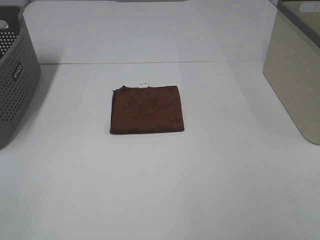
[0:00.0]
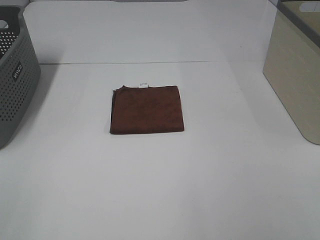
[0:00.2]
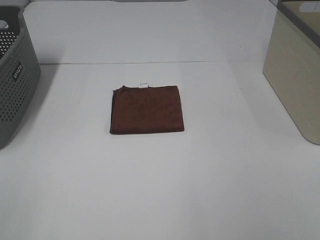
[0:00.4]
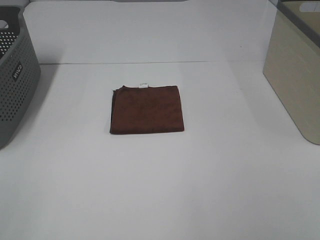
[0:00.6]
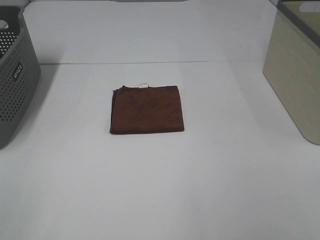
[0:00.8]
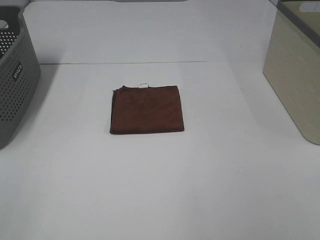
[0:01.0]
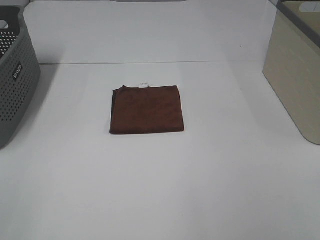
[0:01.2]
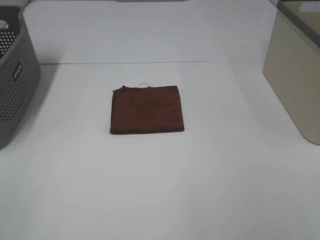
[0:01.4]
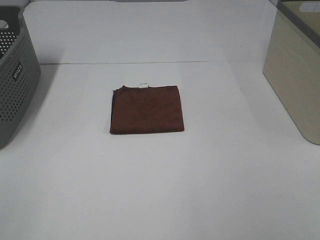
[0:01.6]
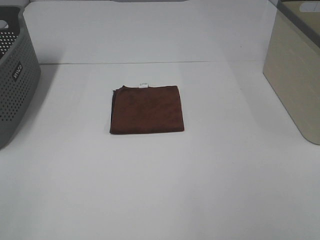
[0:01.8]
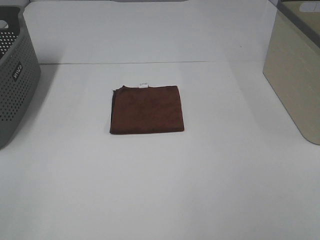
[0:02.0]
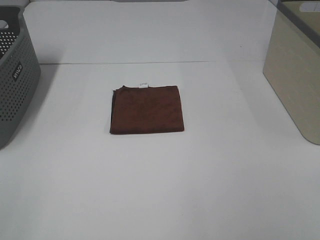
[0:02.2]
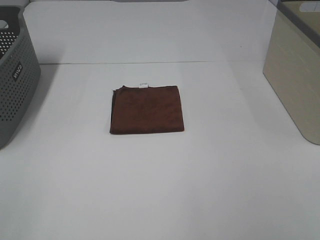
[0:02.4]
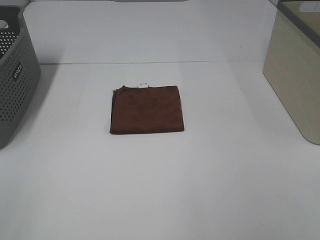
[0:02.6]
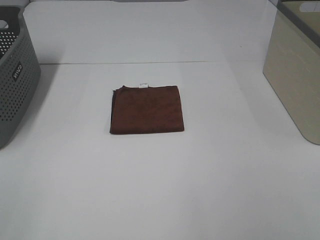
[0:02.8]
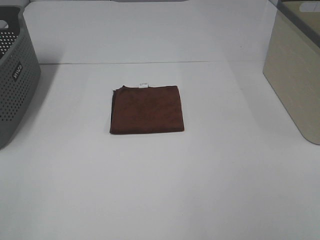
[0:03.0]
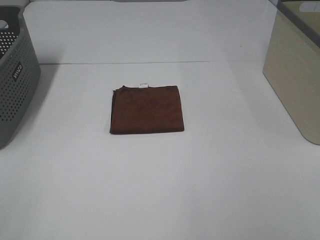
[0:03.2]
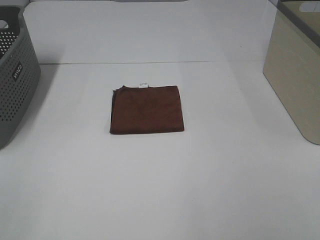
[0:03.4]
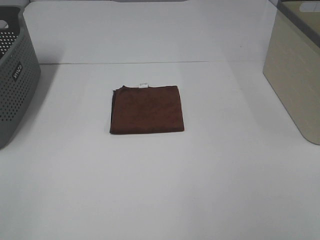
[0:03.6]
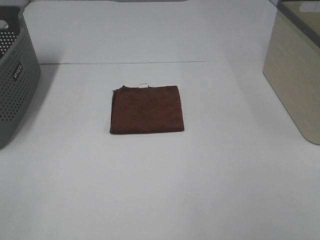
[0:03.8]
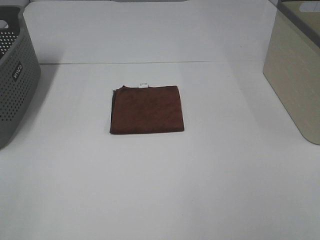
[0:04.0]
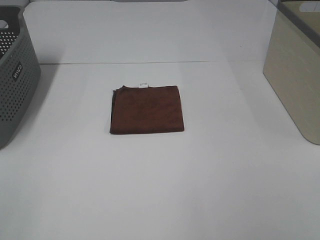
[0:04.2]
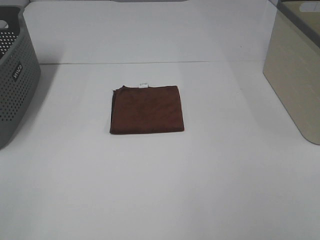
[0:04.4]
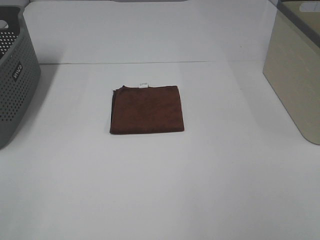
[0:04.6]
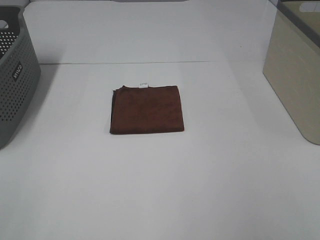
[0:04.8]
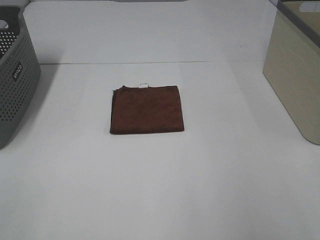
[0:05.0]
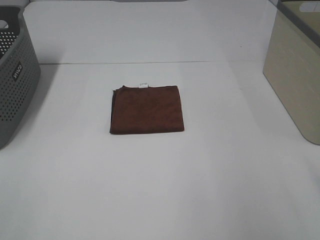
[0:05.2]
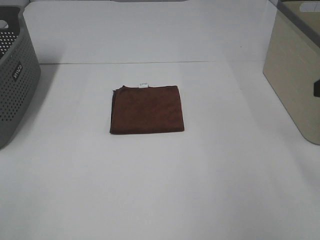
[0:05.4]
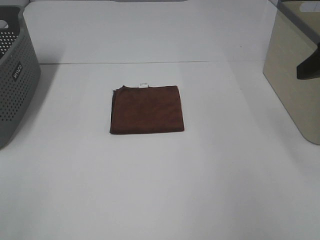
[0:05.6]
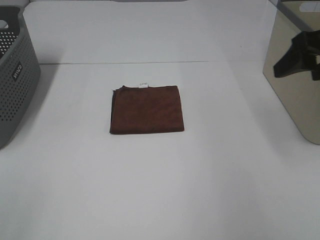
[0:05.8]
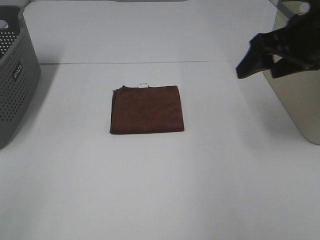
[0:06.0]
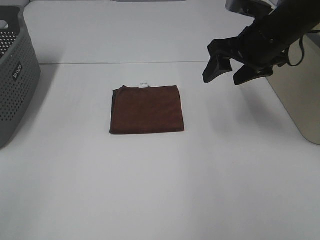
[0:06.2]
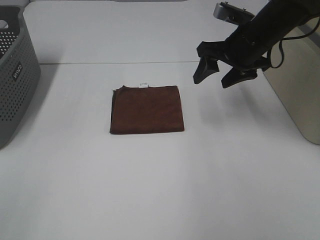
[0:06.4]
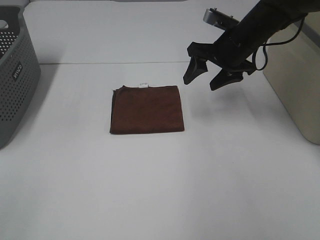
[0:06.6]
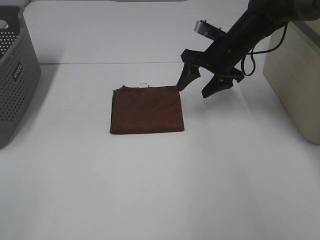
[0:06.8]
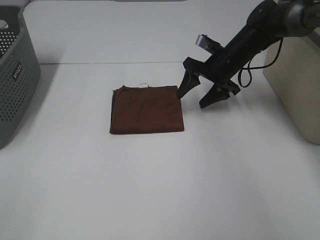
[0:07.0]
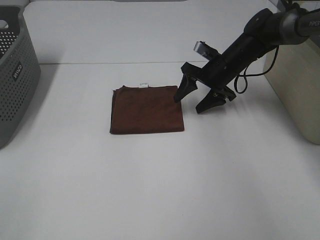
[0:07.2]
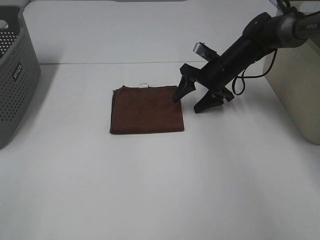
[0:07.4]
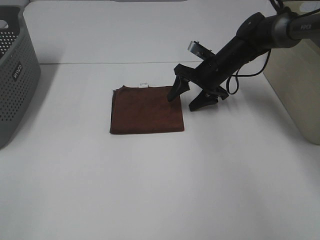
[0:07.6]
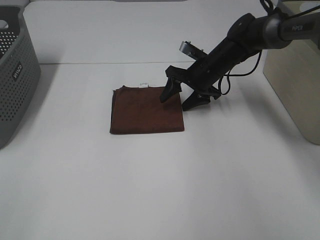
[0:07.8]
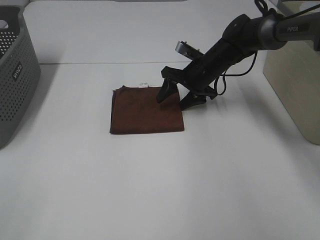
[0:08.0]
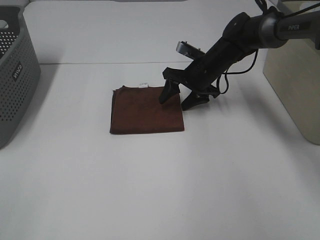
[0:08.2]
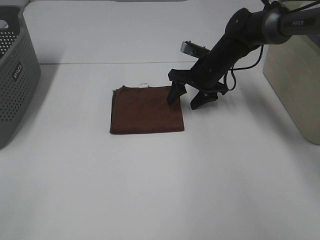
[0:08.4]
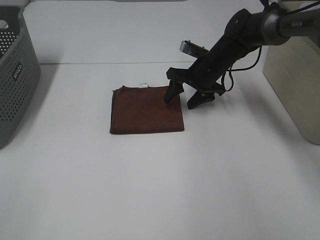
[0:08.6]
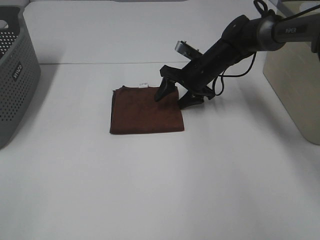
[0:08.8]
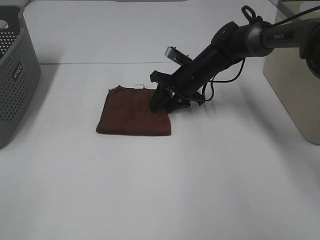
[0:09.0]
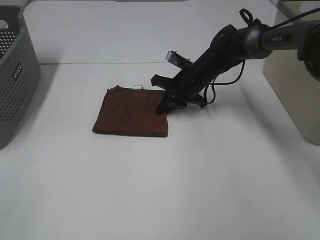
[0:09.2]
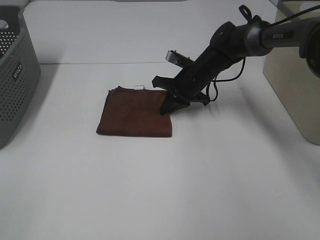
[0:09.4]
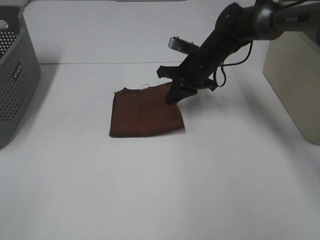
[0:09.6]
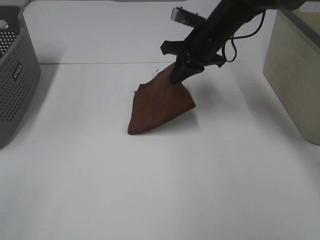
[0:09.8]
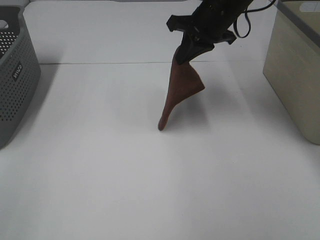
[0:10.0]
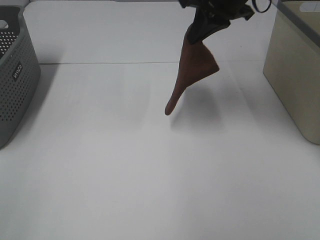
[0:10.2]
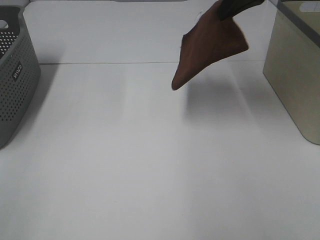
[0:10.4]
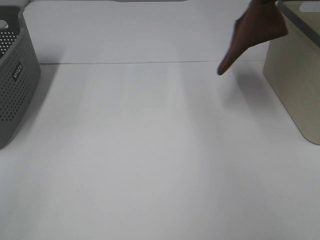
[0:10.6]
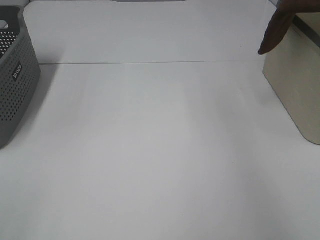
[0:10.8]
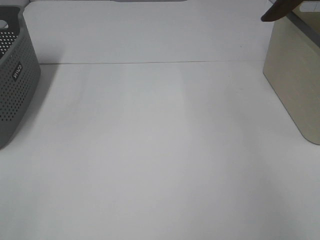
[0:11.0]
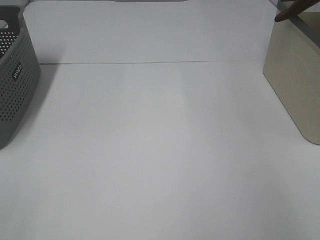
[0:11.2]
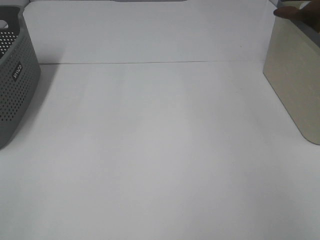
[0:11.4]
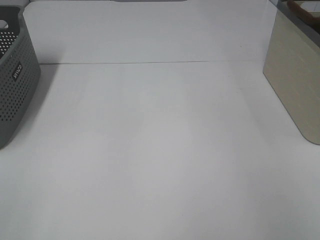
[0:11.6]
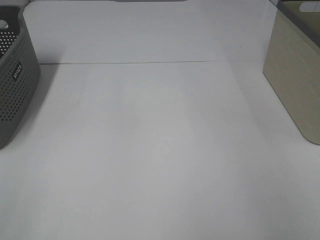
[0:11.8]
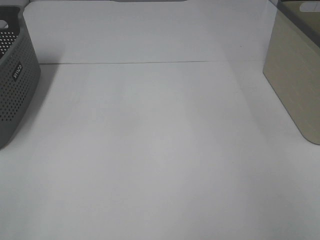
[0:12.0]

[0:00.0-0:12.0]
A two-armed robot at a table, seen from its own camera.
Step, 0:00.0 to 0:09.4: Right hand: grab the folded brown towel.
0:00.0 to 0:04.4: Neither gripper changes place.
0:04.4 to 0:06.0: The right gripper heads forward, covering approximately 30 cm.
0:06.0 to 0:07.6: The right gripper shifts some 25 cm downward, forward and to the left.
0:07.6 to 0:09.0: The right gripper changes place by about 5 cm, and closes up.
0:09.0 to 0:10.4: The right gripper heads upward, covering approximately 25 cm, and closes.
0:10.4 to 0:12.0: The right gripper goes some 25 cm to the right, and opens its fingers.

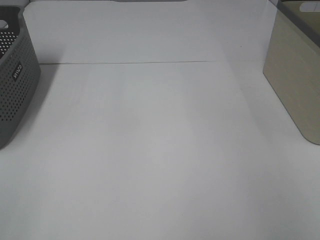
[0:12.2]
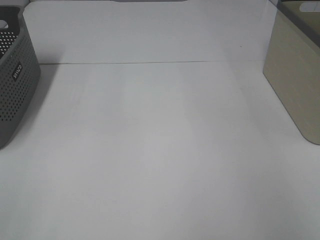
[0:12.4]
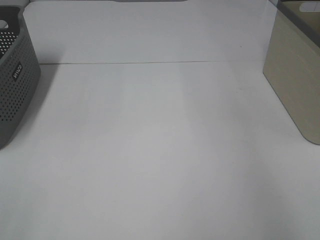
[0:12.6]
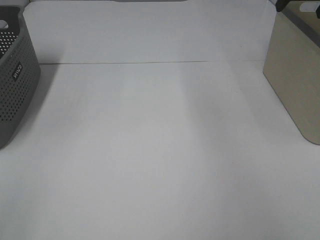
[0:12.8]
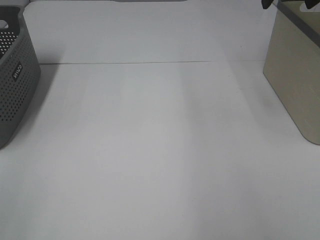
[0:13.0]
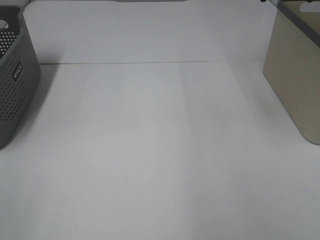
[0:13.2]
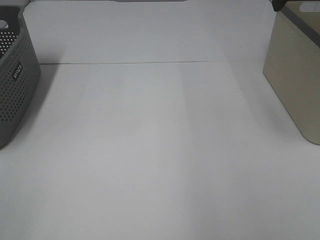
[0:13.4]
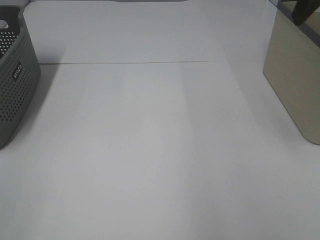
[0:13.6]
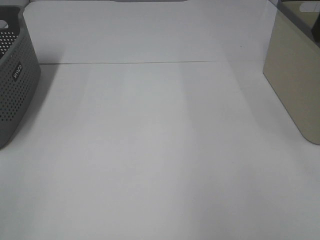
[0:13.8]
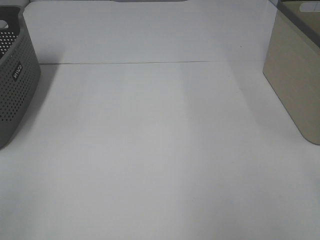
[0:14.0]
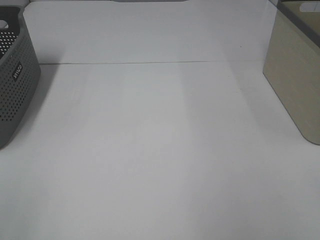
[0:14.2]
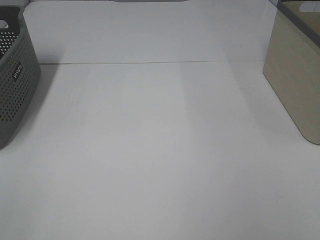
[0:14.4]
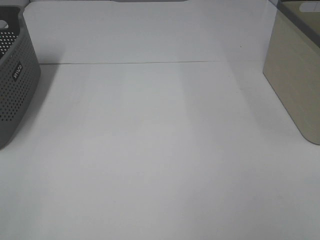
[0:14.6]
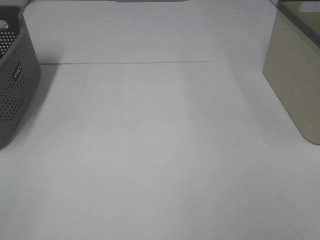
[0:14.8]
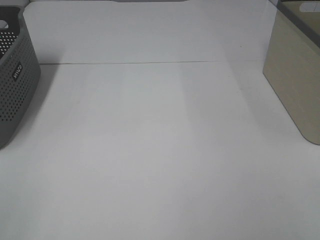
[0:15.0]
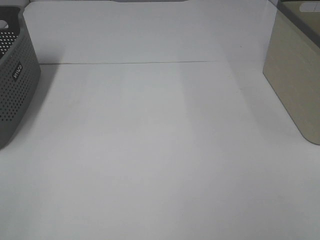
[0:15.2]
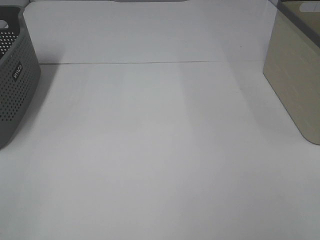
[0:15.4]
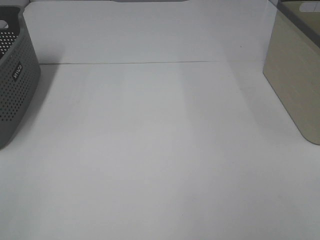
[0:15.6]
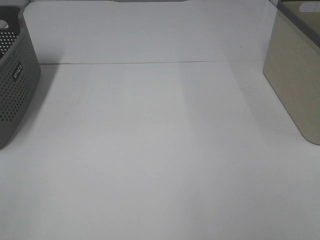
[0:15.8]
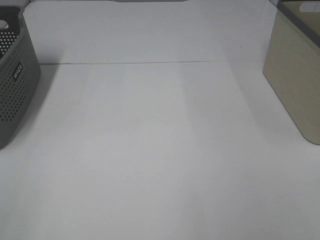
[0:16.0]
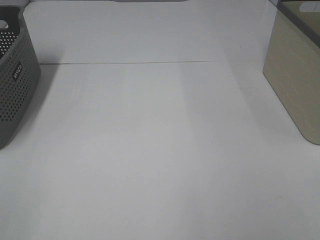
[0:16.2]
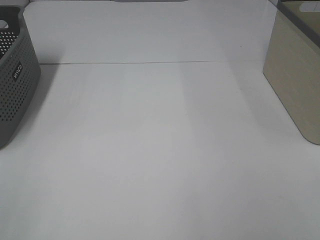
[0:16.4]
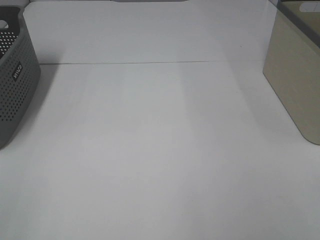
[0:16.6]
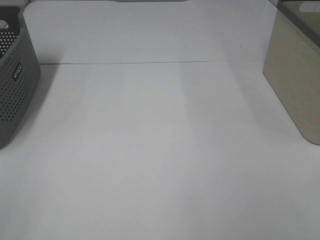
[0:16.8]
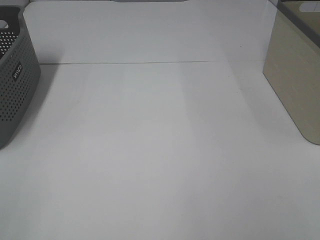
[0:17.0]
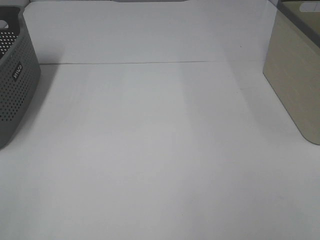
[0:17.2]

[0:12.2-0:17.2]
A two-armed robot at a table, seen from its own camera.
0:15.6 to 0:17.2: Neither gripper changes place.

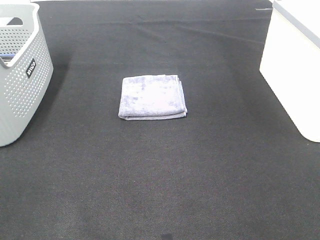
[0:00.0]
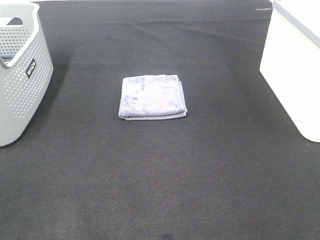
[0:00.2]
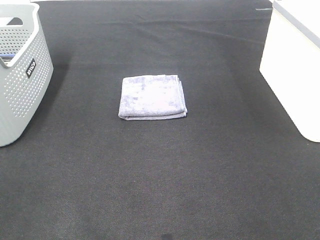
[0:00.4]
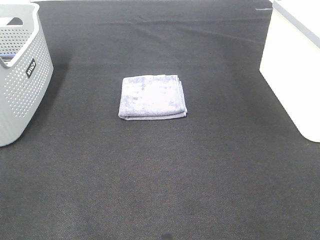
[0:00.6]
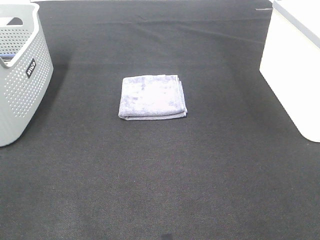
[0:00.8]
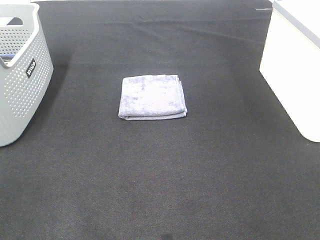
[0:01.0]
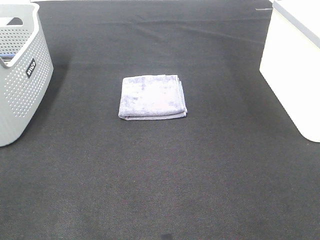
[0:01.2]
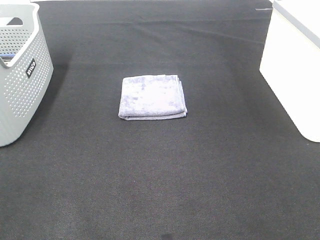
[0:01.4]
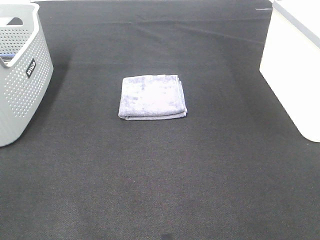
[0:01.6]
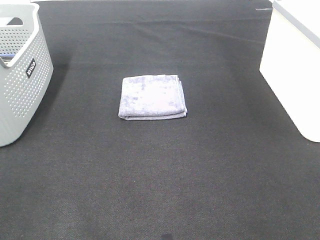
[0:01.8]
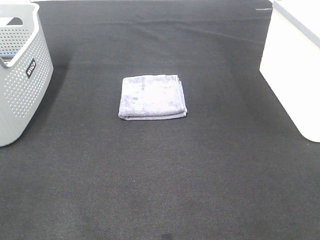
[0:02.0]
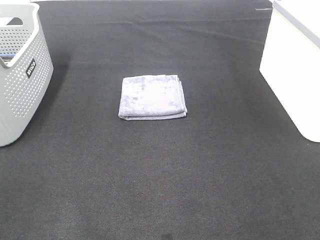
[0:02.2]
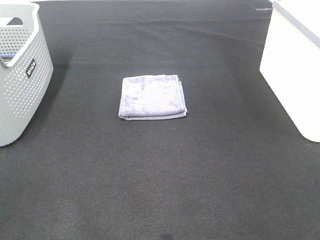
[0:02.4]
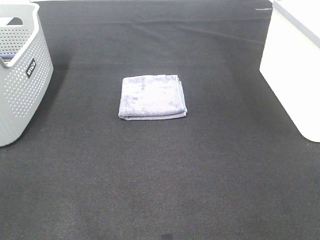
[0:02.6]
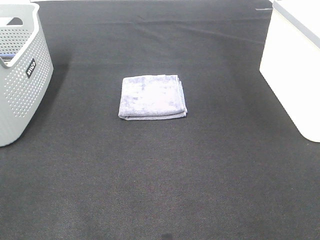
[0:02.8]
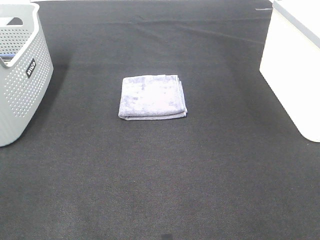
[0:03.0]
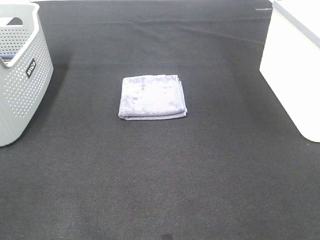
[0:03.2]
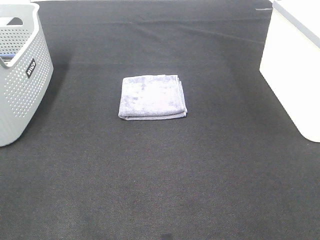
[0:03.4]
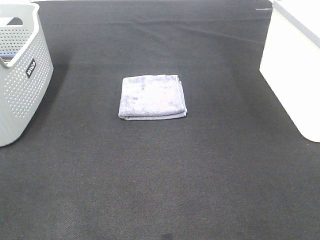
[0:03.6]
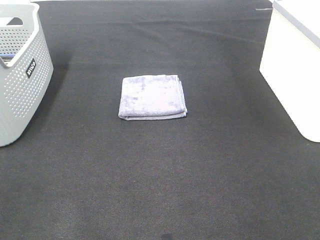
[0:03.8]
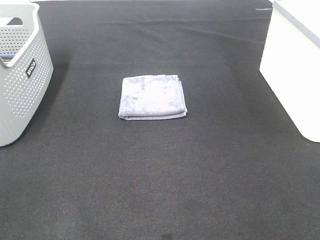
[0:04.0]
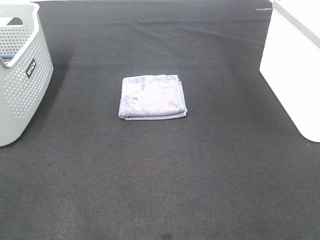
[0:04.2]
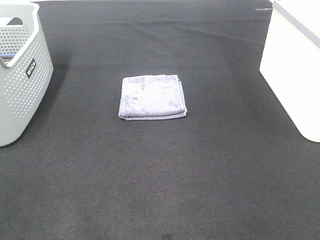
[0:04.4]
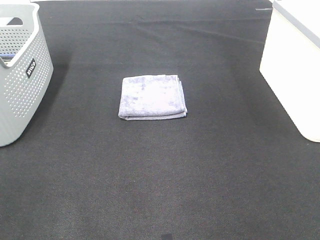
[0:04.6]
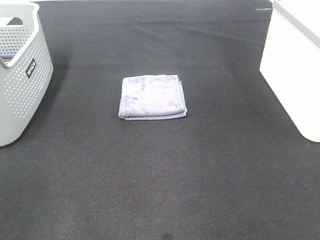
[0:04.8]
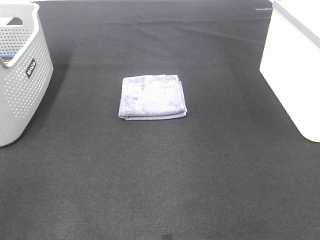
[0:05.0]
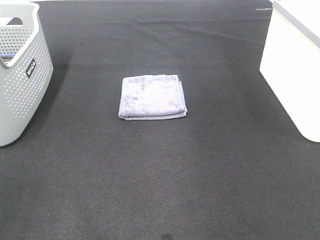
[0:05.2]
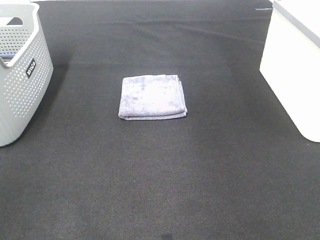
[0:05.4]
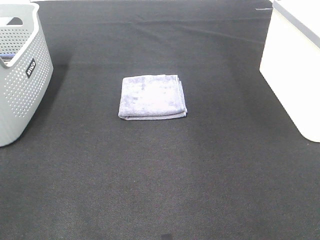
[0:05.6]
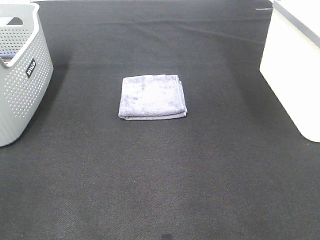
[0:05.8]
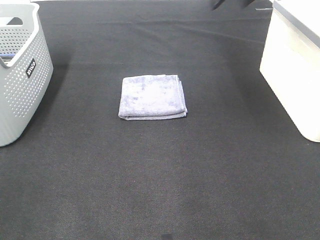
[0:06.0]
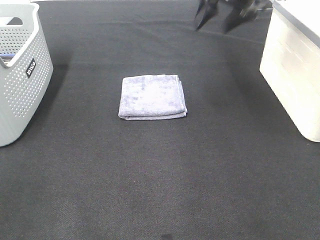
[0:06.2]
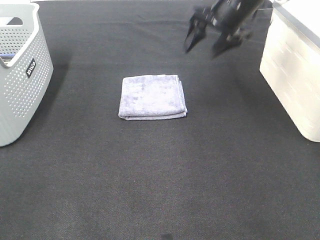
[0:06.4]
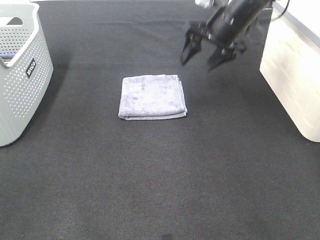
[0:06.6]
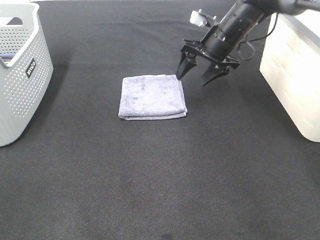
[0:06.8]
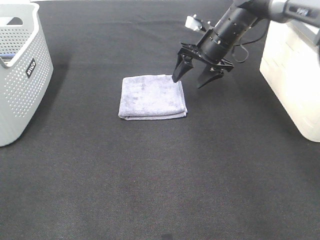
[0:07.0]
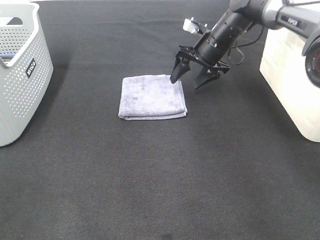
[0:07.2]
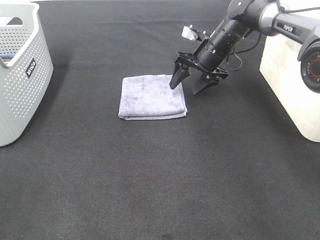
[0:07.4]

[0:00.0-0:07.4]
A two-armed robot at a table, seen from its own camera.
0:00.0 to 0:03.0: Both grippers stay put.
0:04.4 to 0:06.0: The right gripper is displaced forward by approximately 40 cm.
0:06.0 to 0:07.4: The right gripper shifts roughly 20 cm downward.
